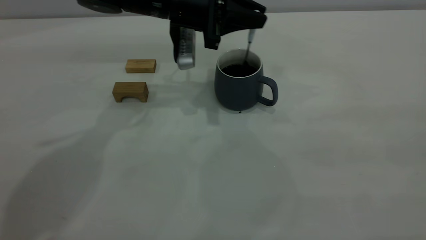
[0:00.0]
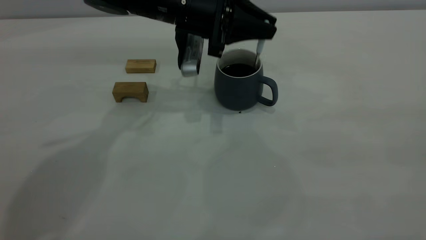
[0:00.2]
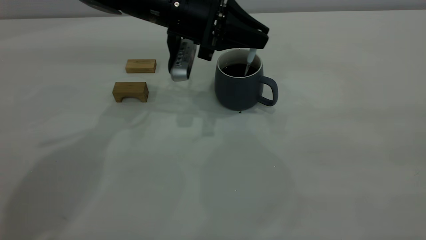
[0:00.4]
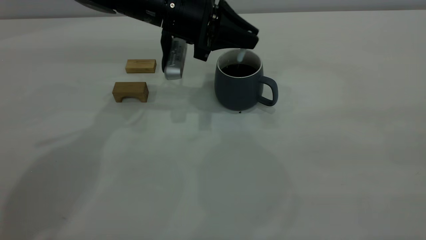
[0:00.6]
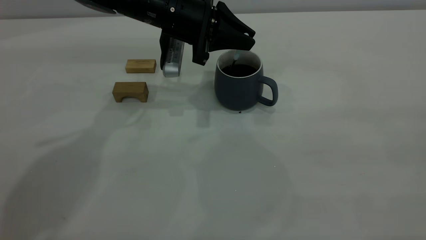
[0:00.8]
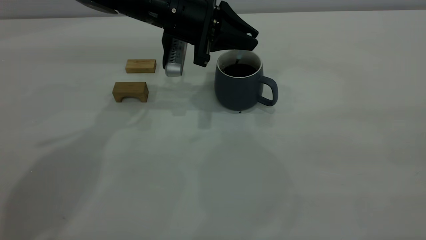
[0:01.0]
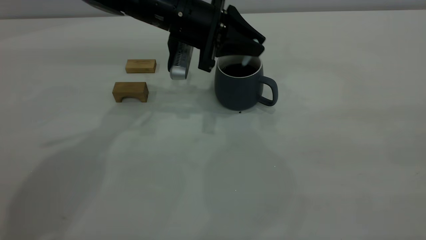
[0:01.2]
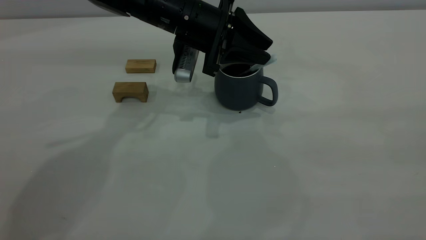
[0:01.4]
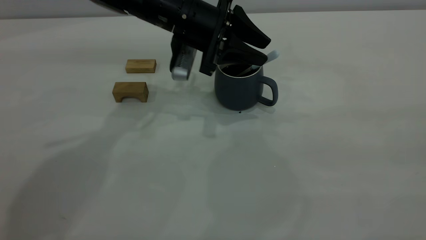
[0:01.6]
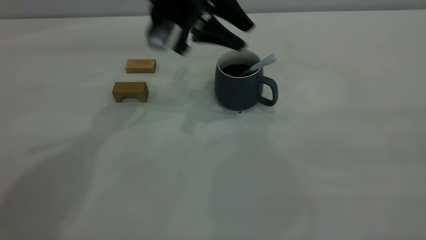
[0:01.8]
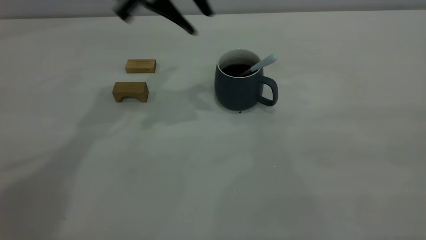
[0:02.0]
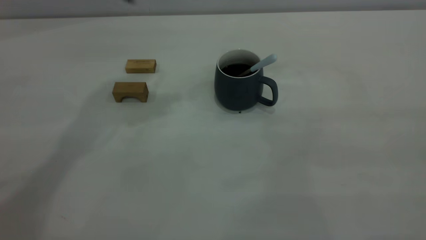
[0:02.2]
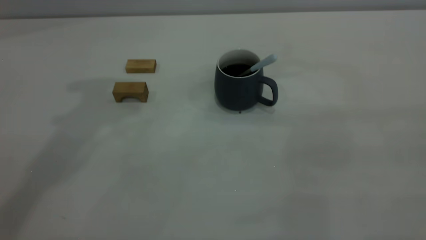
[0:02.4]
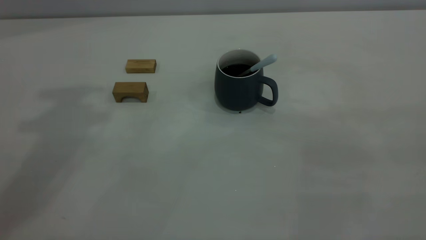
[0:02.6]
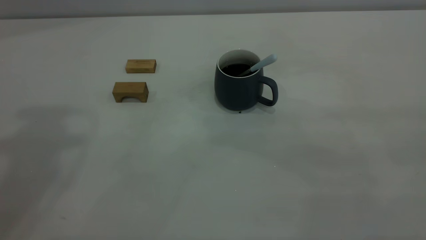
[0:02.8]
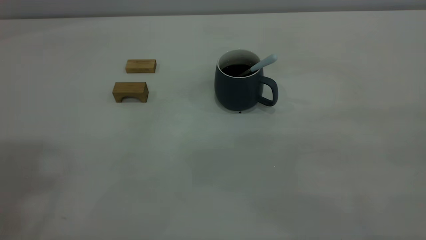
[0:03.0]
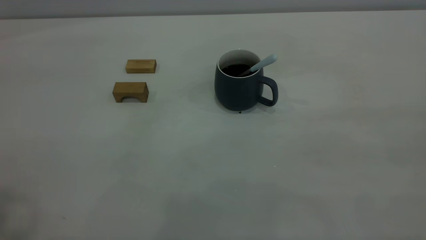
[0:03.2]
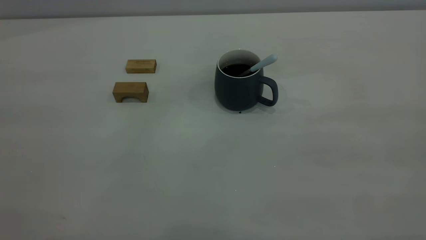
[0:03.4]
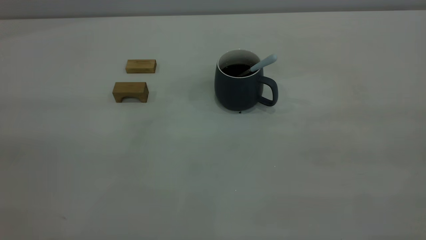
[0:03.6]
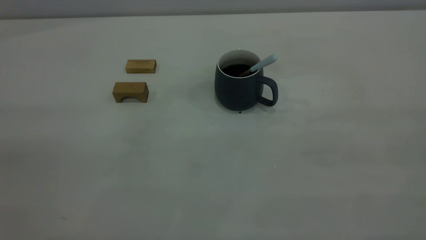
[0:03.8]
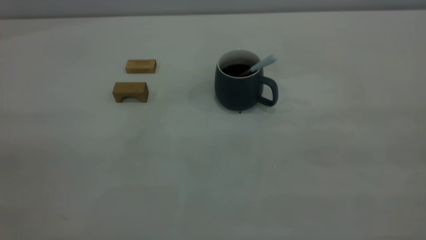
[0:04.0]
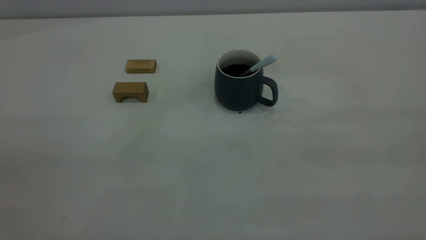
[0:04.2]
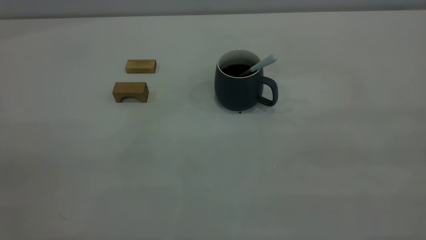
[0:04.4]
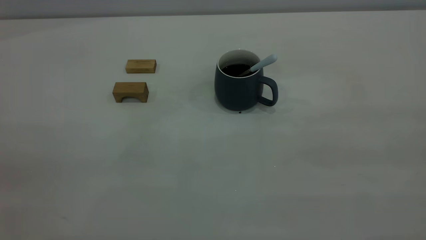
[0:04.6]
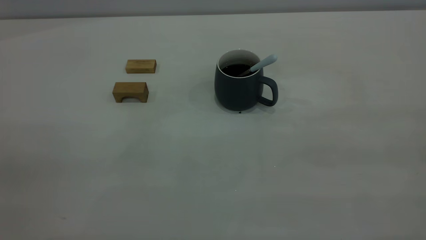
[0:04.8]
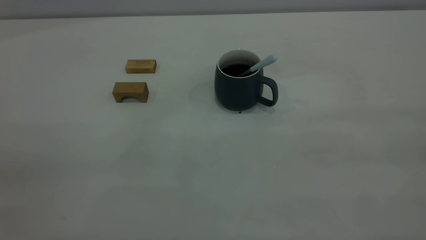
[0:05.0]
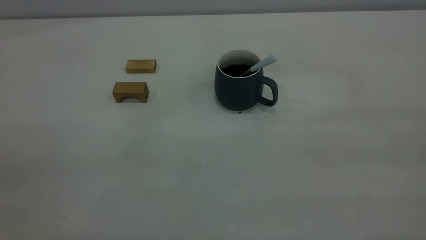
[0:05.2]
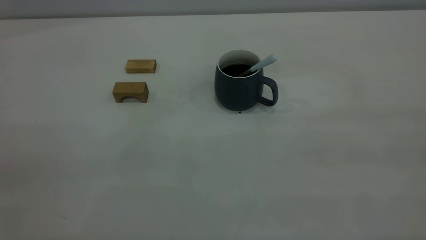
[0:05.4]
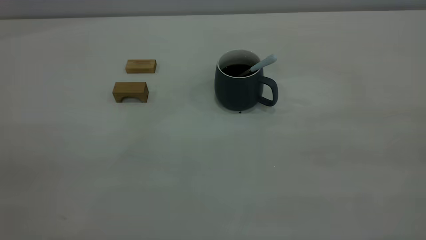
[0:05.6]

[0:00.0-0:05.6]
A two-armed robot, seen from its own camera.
0:00.0 to 0:01.4: The left gripper opens up.
0:01.4 to 0:02.8: The left gripper moves upward, to the left and backward, some 40 cm.
0:04.2 to 0:05.6: Both grippers stay put.

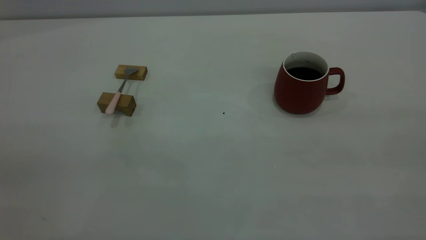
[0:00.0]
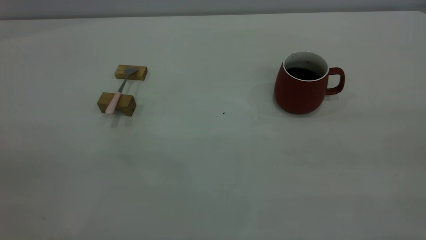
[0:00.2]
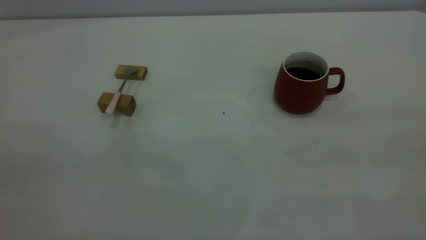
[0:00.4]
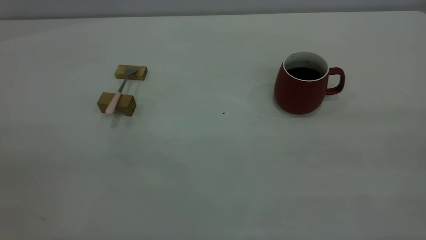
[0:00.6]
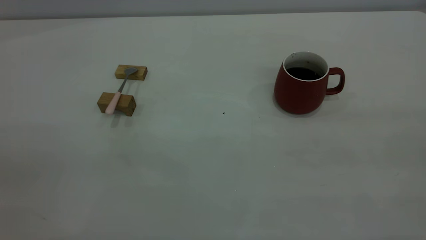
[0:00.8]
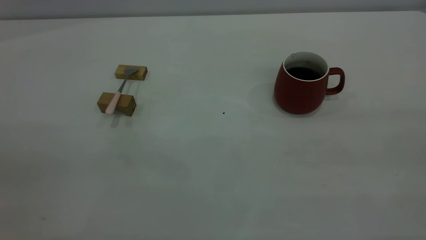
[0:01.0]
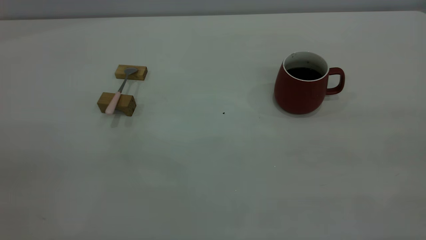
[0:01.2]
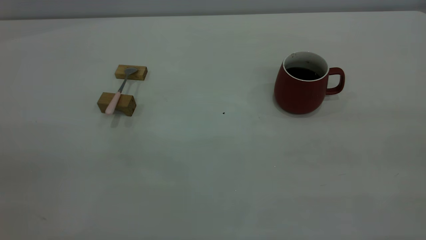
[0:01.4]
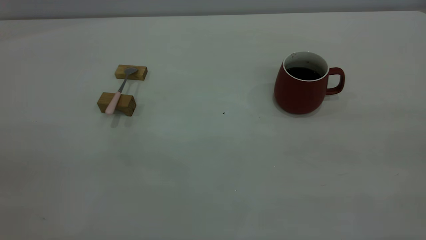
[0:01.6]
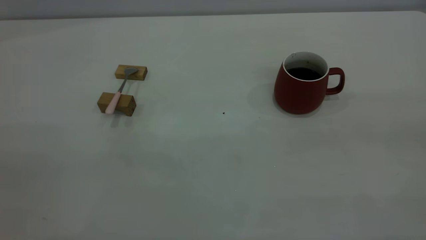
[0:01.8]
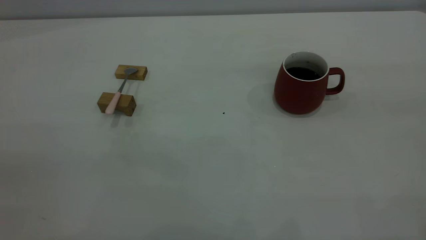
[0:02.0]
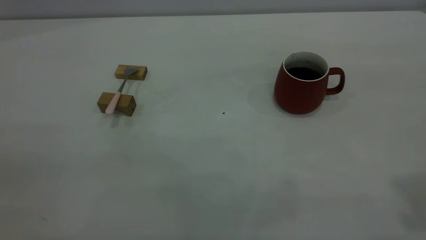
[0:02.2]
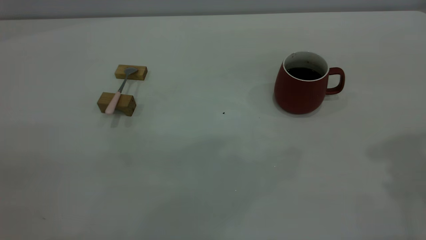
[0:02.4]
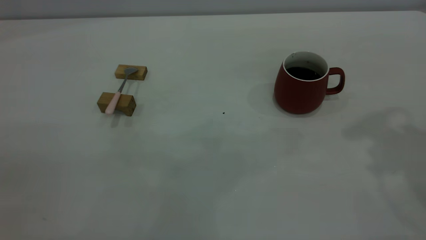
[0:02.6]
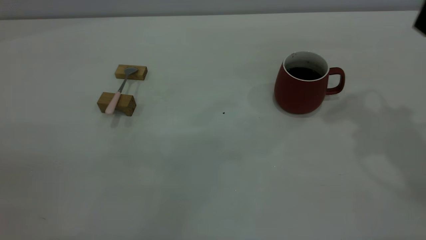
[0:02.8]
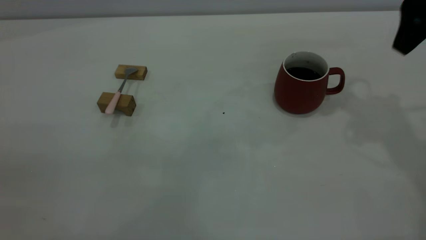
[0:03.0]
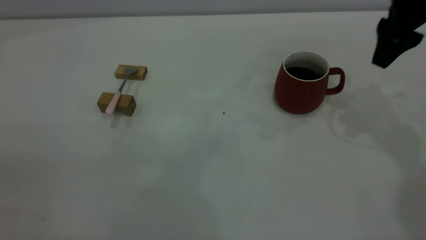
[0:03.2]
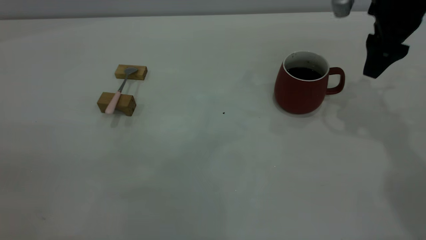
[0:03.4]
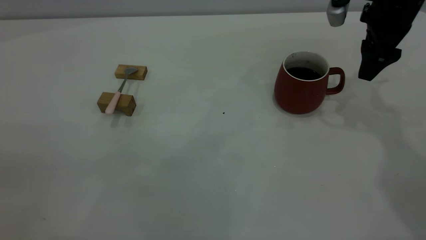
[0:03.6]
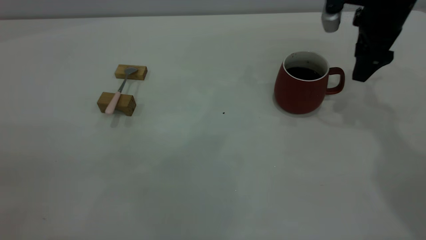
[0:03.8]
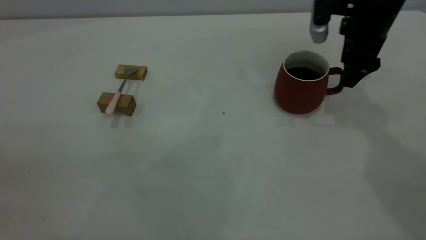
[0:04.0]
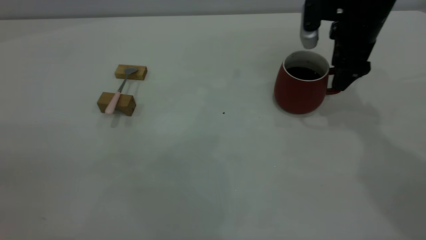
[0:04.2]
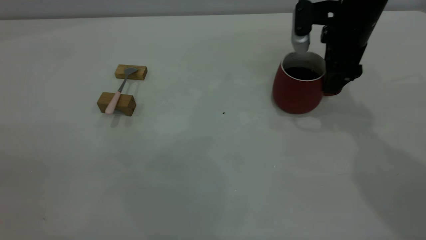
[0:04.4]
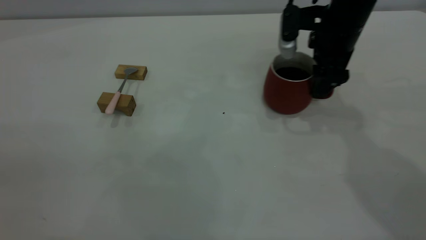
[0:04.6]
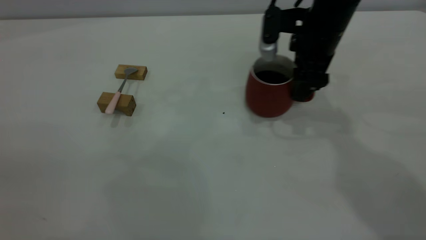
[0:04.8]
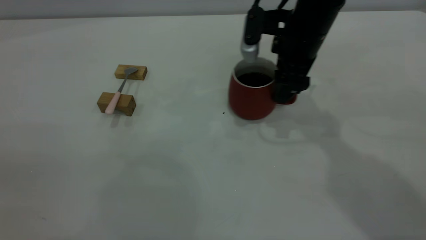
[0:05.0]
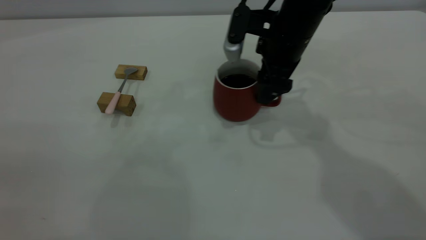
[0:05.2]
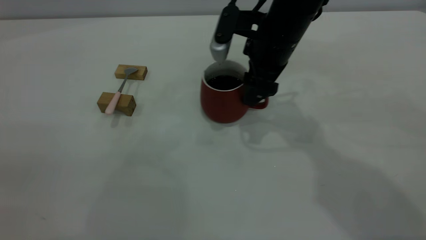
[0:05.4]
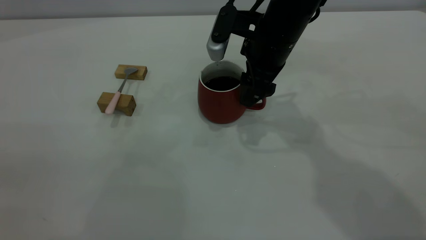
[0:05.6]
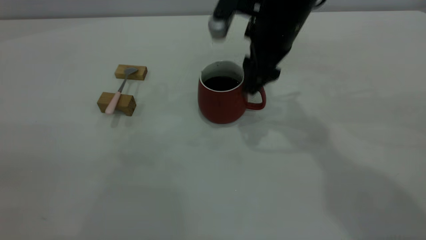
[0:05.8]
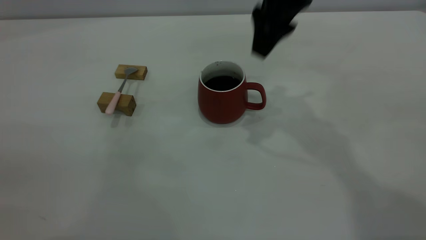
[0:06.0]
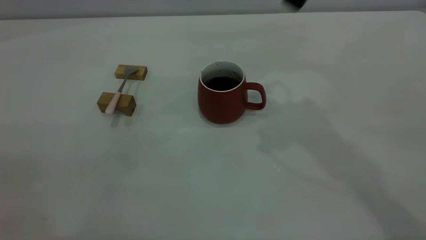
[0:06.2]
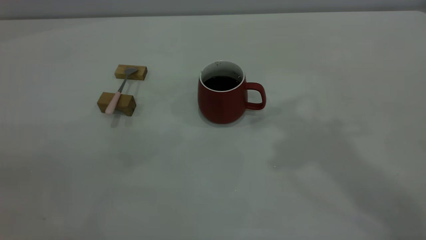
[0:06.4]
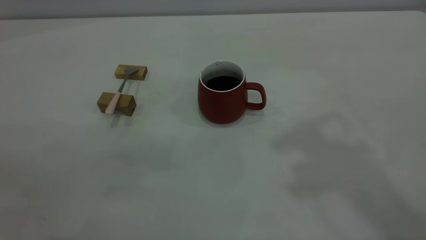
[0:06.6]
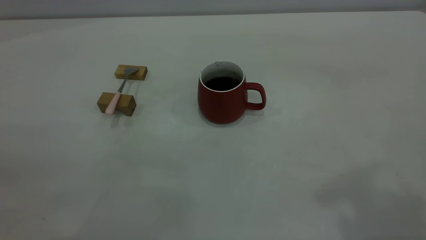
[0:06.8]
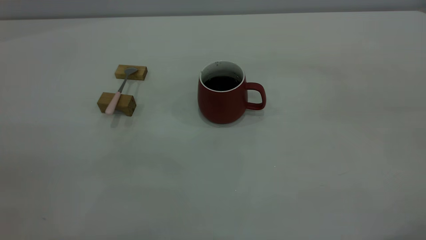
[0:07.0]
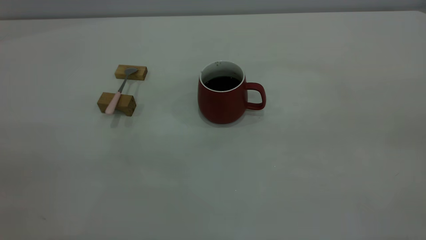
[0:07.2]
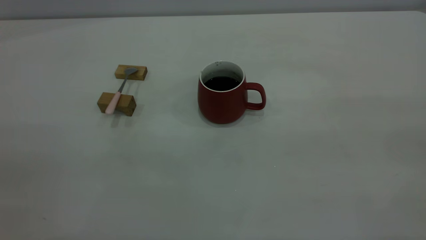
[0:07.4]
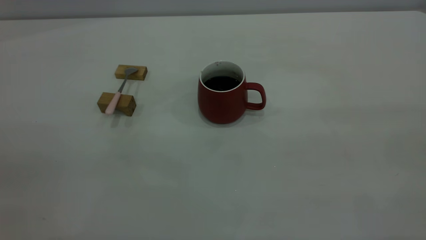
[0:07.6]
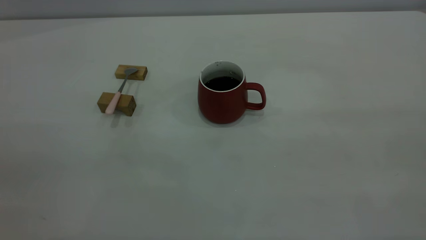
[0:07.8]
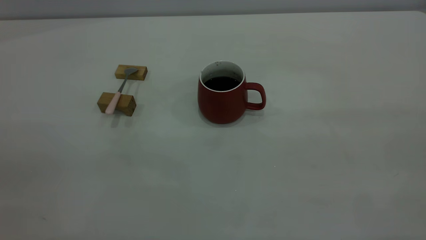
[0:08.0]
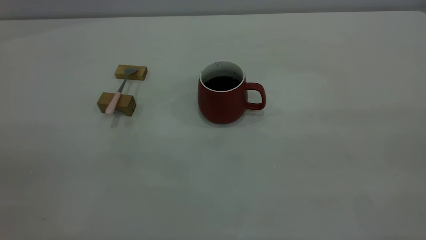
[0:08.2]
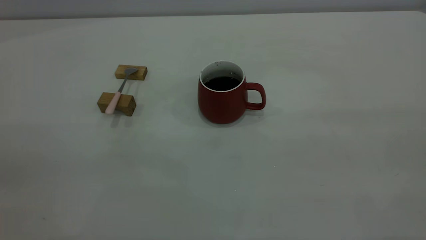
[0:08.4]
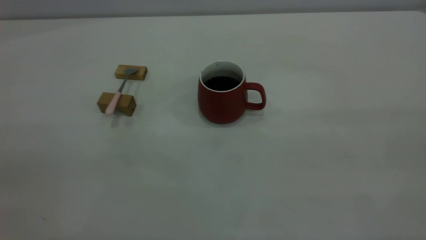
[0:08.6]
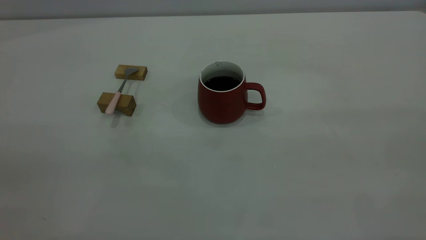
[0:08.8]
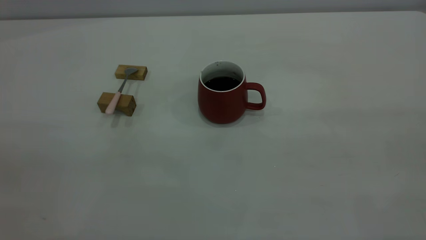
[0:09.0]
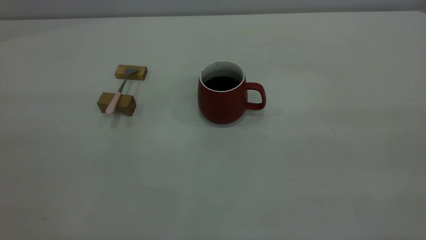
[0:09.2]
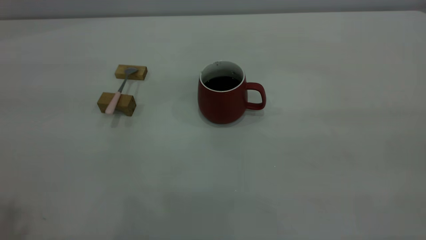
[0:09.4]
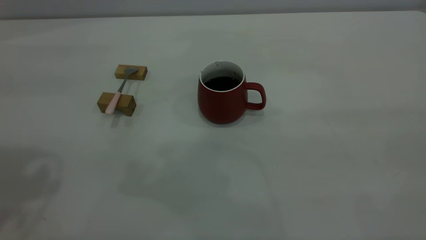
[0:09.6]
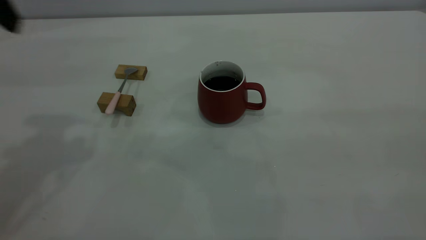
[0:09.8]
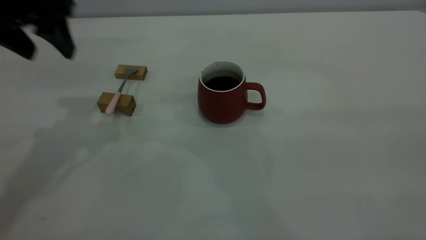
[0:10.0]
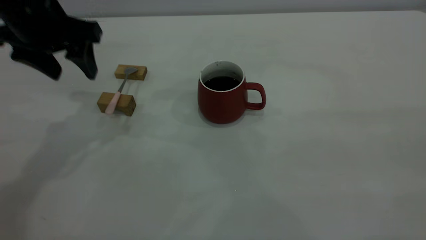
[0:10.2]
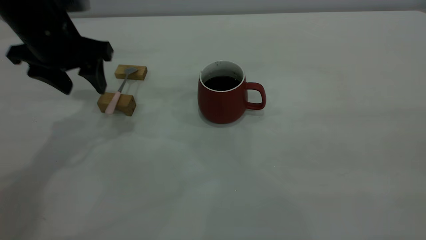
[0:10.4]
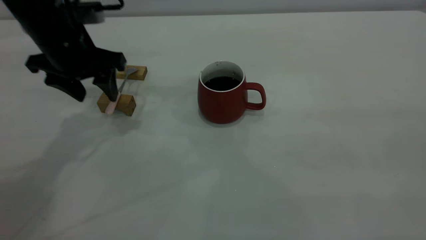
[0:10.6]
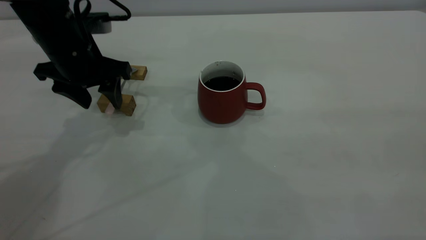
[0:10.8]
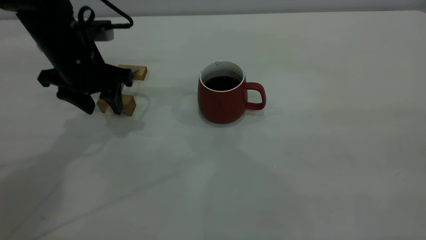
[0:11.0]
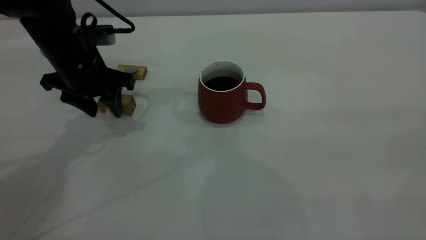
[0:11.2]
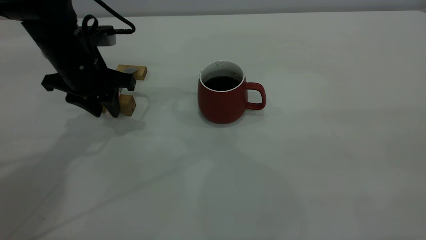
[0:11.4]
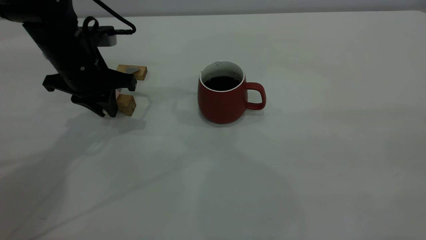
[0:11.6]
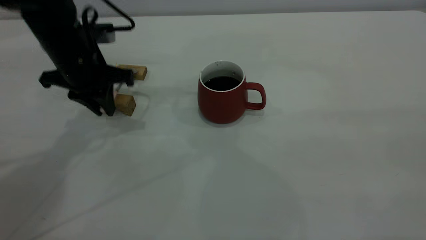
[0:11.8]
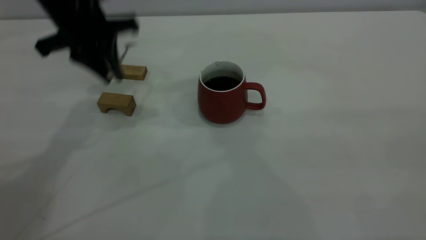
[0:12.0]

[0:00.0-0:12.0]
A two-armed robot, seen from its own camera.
Step, 0:00.0 to 0:05.8: Move the cup with coffee to the center of view.
0:00.0 to 0:01.6: Neither gripper changes place.
0:01.6 to 0:03.0: The right gripper heads forward, covering roughly 35 cm.
0:03.0 to 0:04.4: The right gripper goes roughly 15 cm downward, to the left and forward.
0:04.4 to 0:06.0: The right gripper travels upward and to the left by about 15 cm.
0:06.0 to 0:07.6: The right gripper travels backward and to the right by some 40 cm.
0:09.0 to 0:10.4: The left gripper moves forward and downward, about 40 cm.
0:10.4 to 0:12.0: The left gripper shifts by some 5 cm, and closes its fingers.
